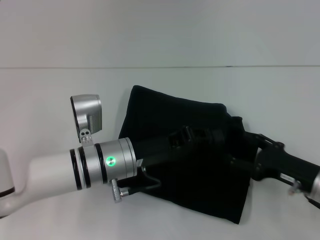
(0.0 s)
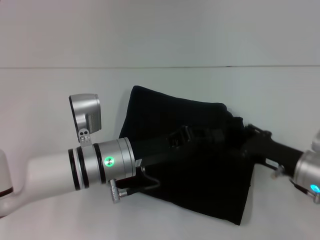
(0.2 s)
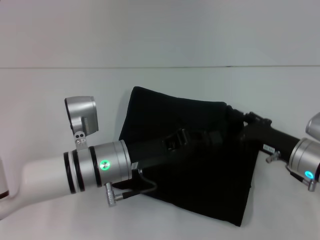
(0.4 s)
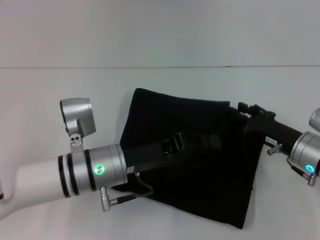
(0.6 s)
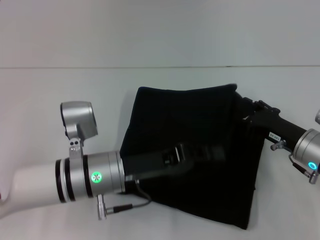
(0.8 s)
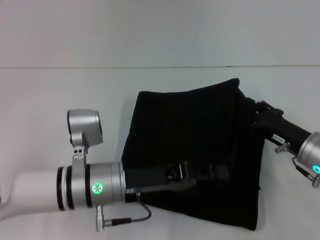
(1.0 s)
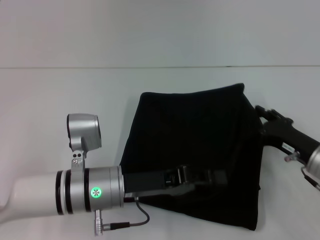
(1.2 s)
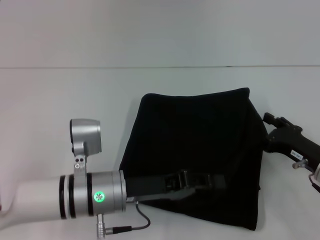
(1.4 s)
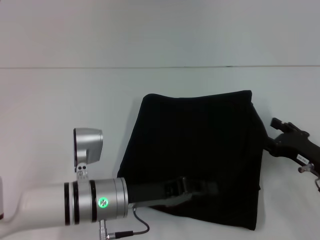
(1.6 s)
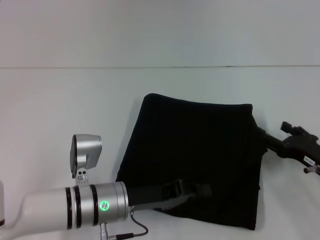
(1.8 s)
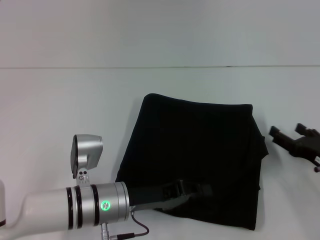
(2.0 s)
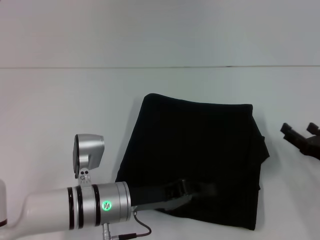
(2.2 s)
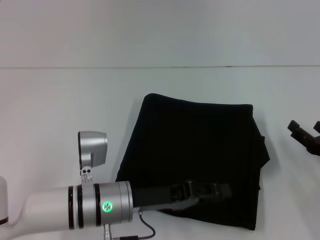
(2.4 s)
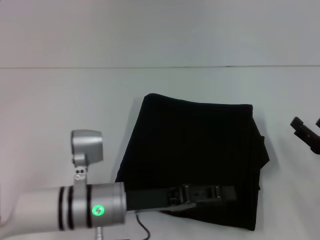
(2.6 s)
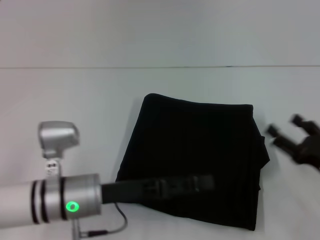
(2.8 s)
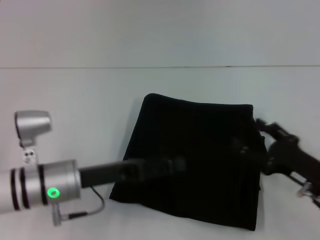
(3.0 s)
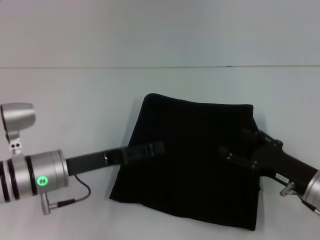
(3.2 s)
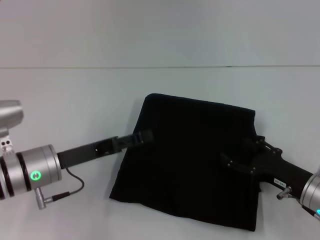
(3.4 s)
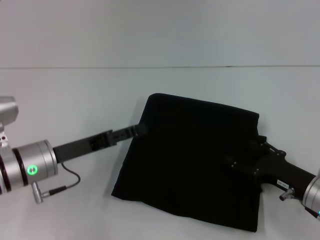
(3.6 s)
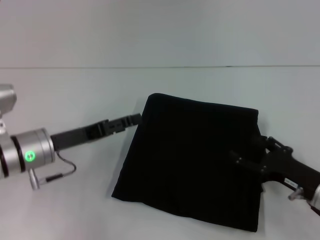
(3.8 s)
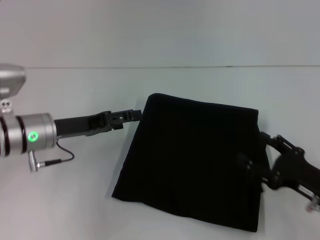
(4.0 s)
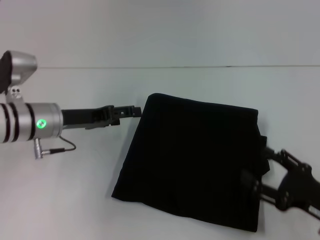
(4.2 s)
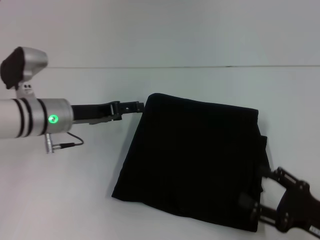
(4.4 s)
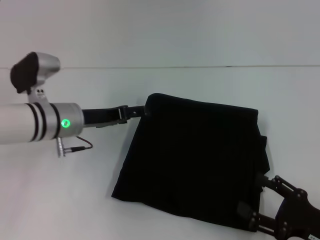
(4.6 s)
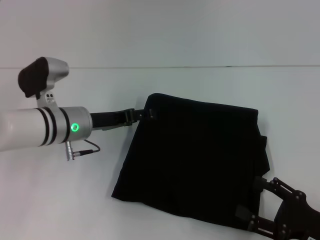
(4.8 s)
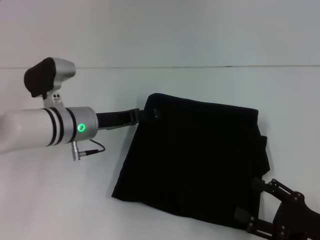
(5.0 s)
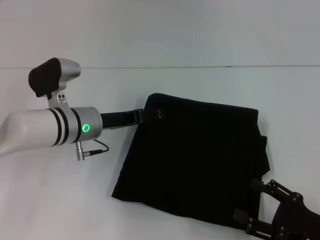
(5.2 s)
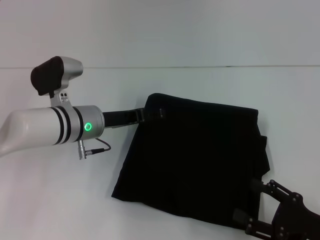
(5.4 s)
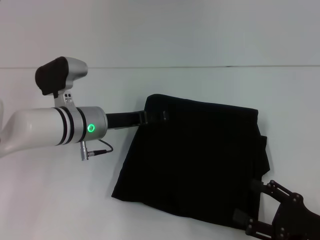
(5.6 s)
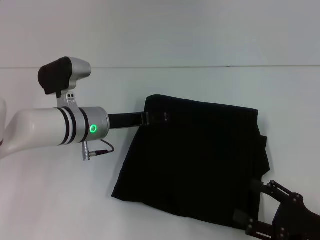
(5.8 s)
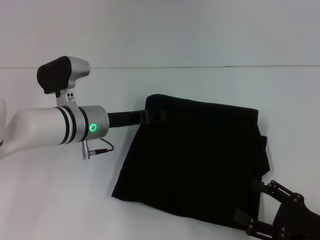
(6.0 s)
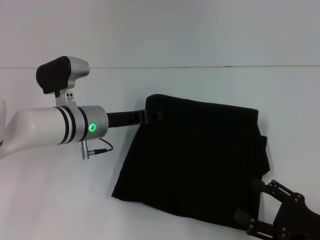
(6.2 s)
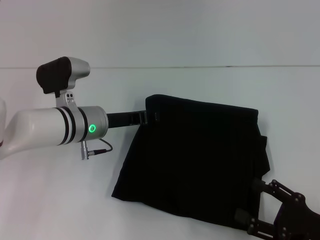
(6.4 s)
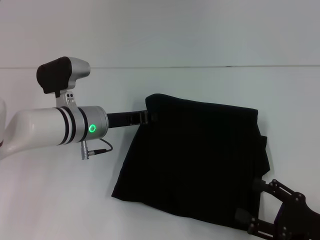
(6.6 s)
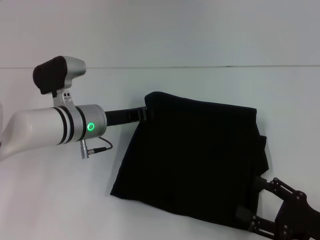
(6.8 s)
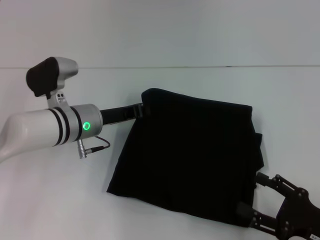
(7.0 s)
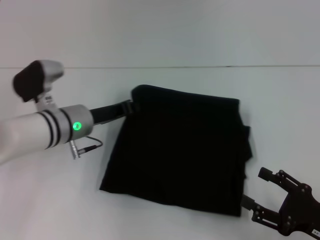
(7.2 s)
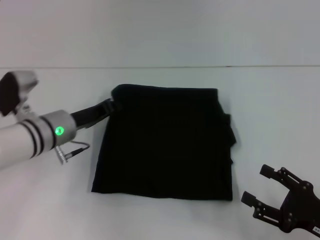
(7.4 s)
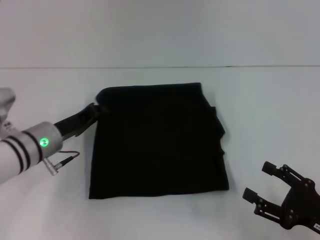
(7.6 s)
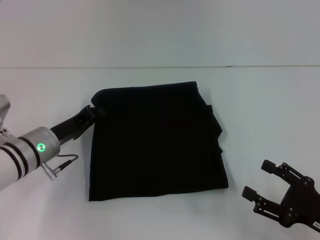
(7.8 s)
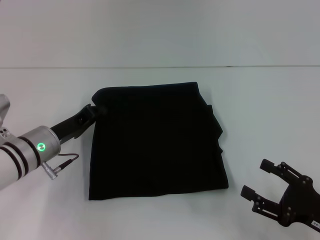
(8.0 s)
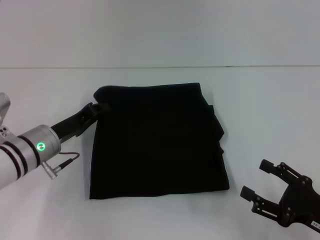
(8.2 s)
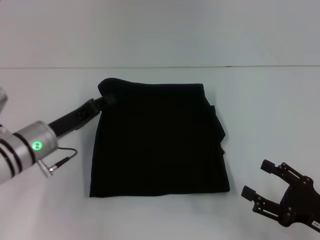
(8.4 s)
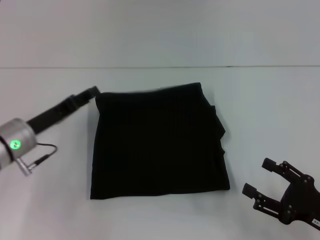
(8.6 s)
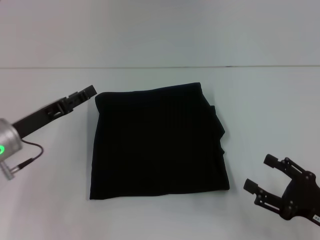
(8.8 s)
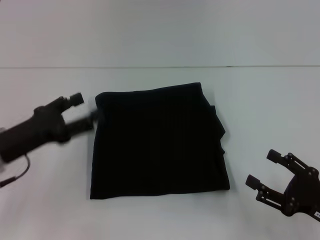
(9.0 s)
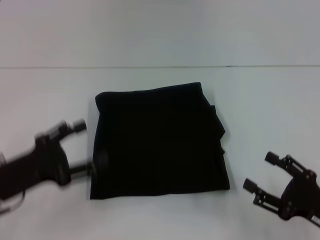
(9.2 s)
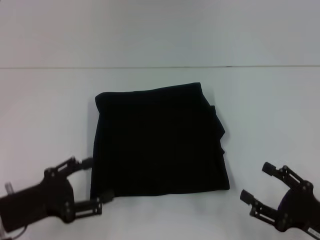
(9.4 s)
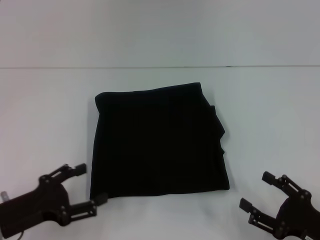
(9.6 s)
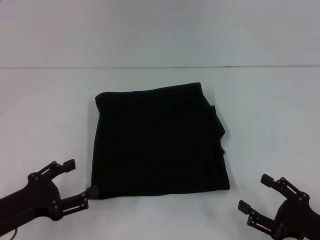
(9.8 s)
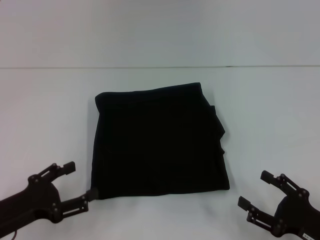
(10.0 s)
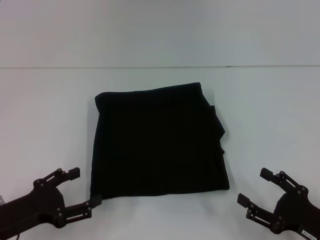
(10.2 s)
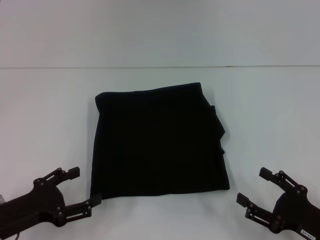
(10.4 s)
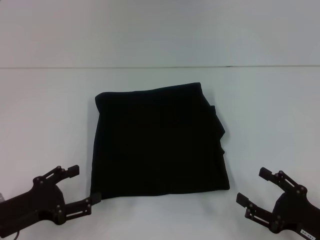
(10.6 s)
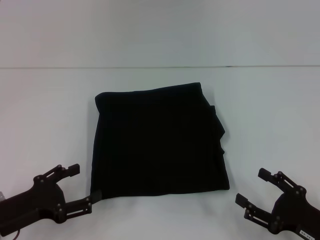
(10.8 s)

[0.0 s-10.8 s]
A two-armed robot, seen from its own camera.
1.6 to 3.0 s: The left gripper shifts roughly 5 cm to the left, and opens.
3.0 to 4.6 s: The right gripper is displaced backward by about 5 cm. Meanwhile the left gripper moves forward, about 10 cm.
4.6 to 6.2 s: There are only small adjustments of the grippers.
6.2 to 7.8 s: The left gripper is displaced to the left by some 5 cm, and closes its fingers.
7.8 to 9.2 s: The left gripper moves backward and to the left, about 10 cm, and opens.
9.2 to 10.8 s: The left gripper shifts by roughly 5 cm.
